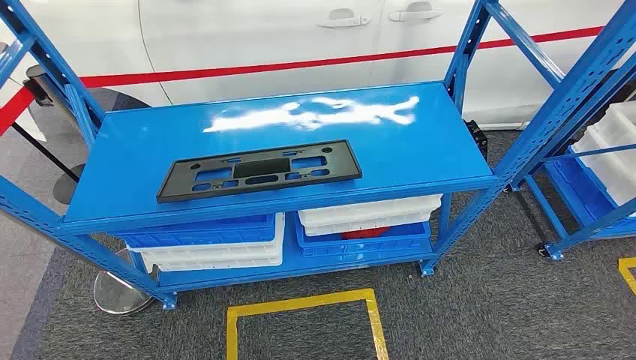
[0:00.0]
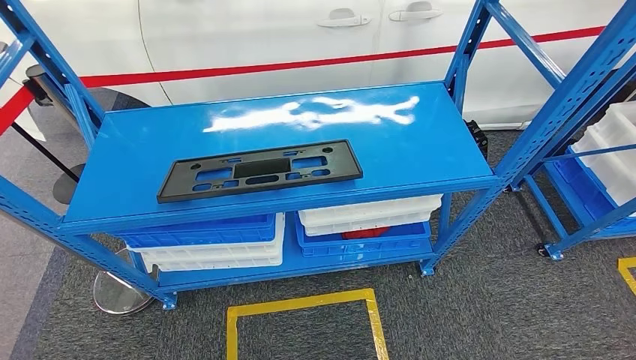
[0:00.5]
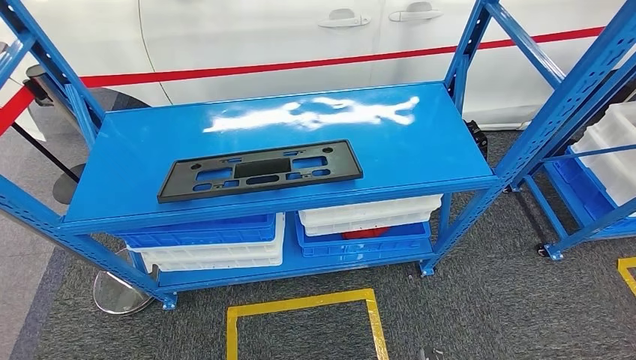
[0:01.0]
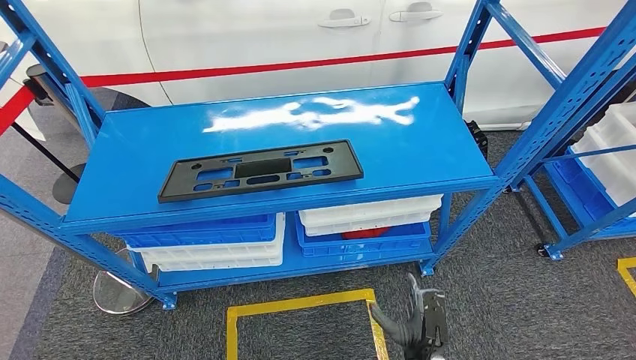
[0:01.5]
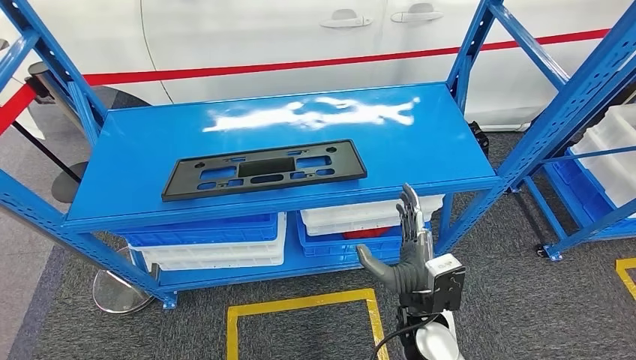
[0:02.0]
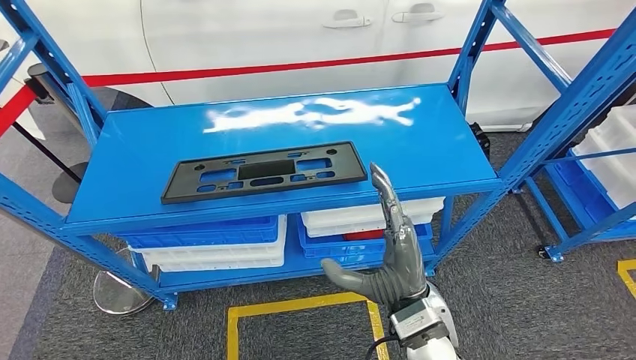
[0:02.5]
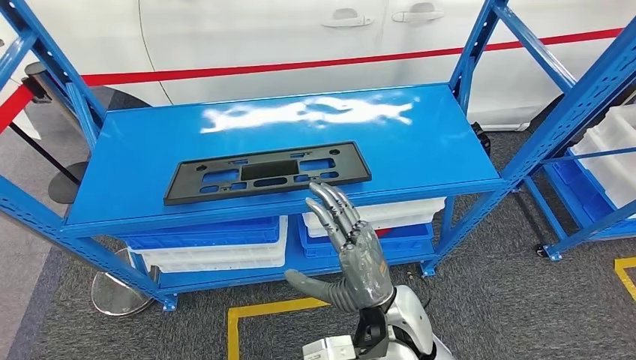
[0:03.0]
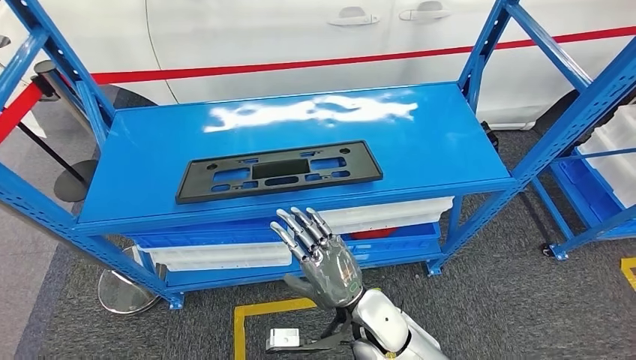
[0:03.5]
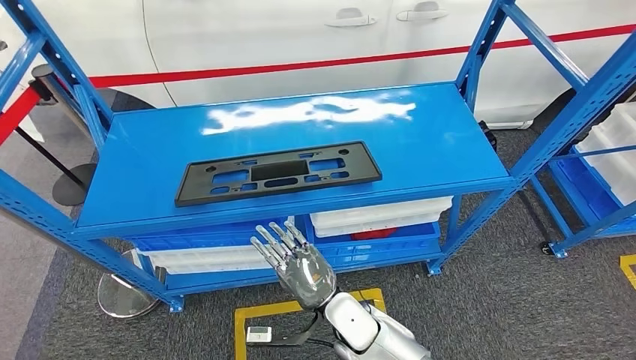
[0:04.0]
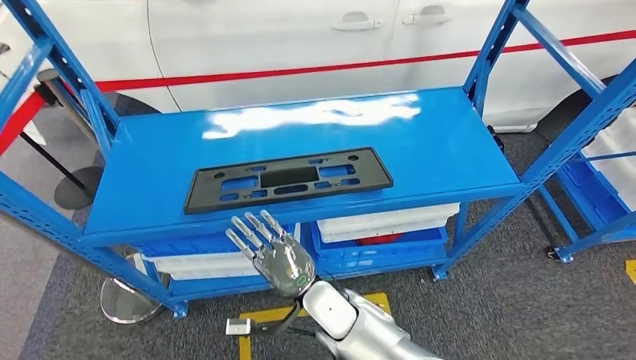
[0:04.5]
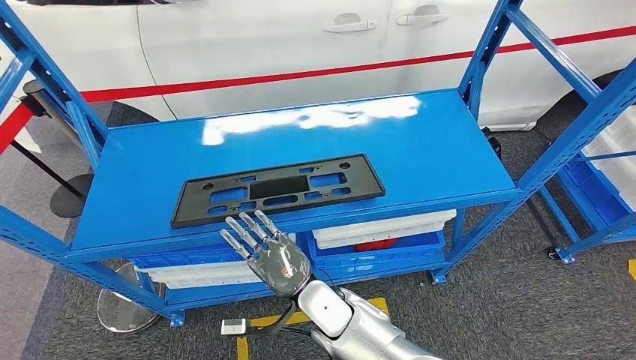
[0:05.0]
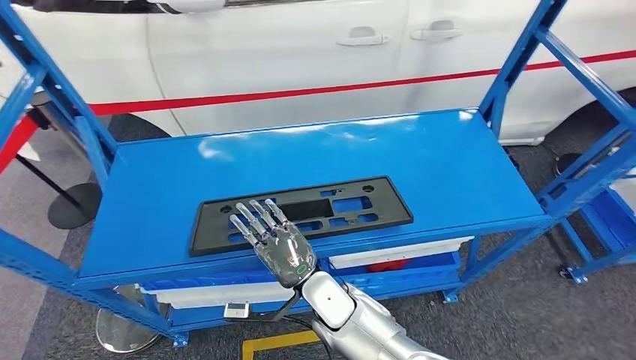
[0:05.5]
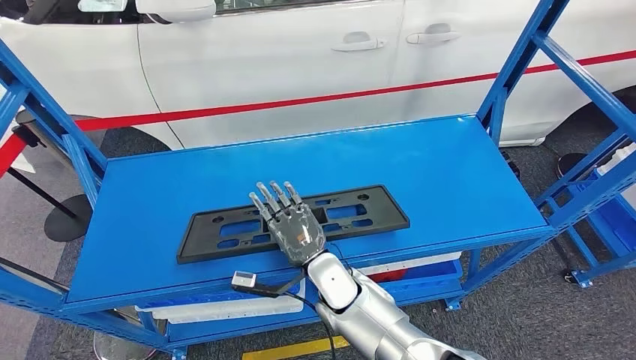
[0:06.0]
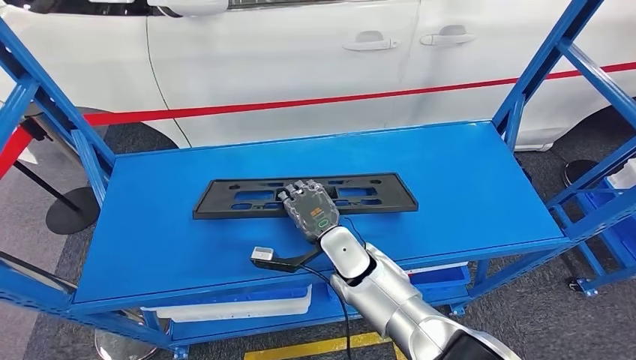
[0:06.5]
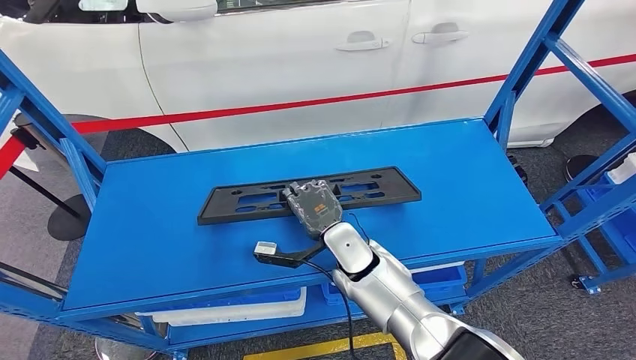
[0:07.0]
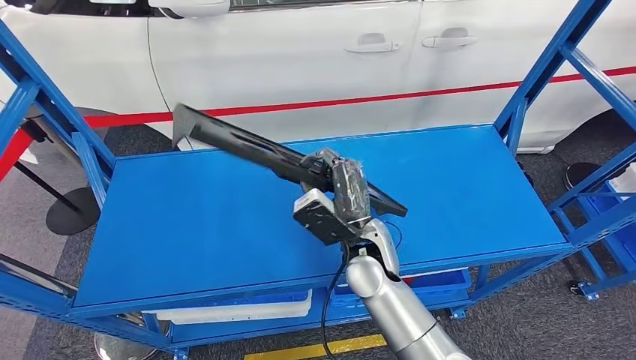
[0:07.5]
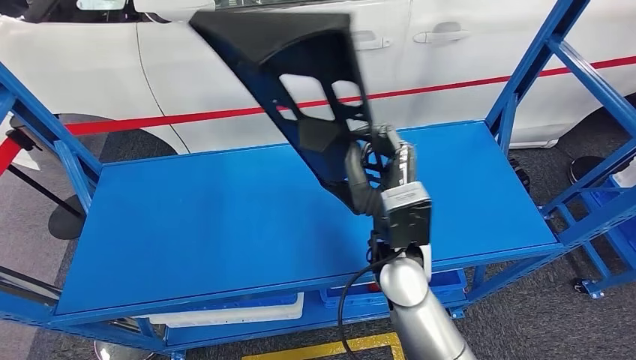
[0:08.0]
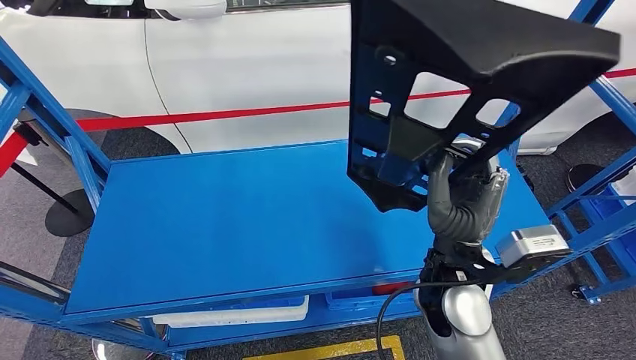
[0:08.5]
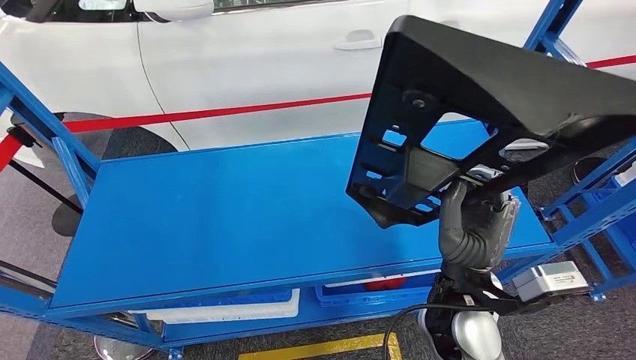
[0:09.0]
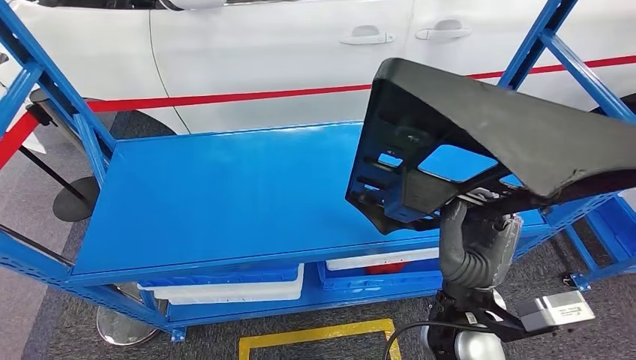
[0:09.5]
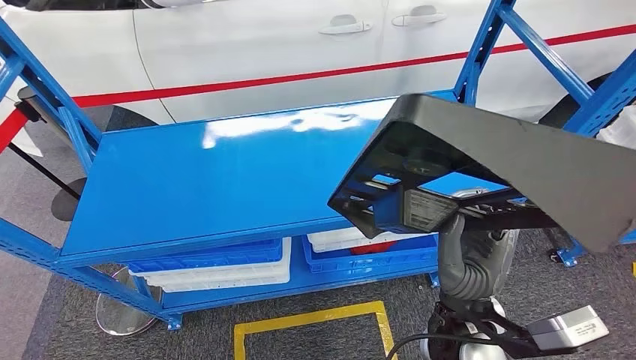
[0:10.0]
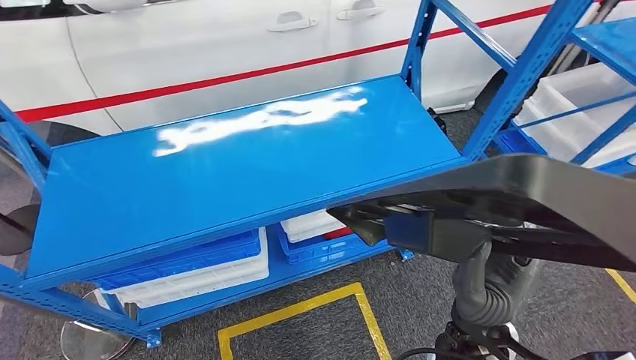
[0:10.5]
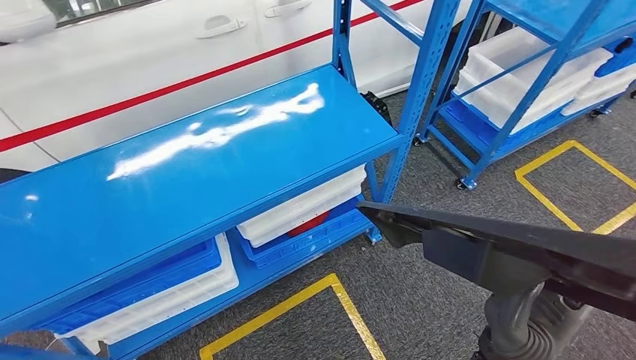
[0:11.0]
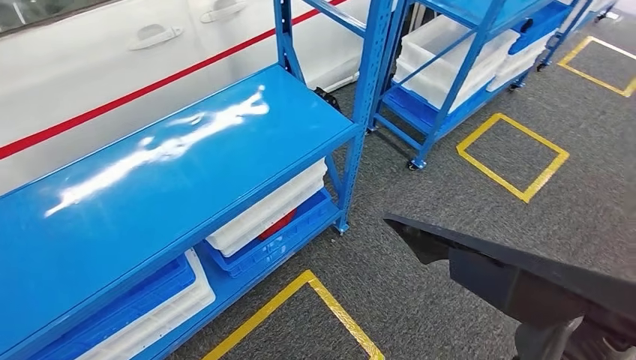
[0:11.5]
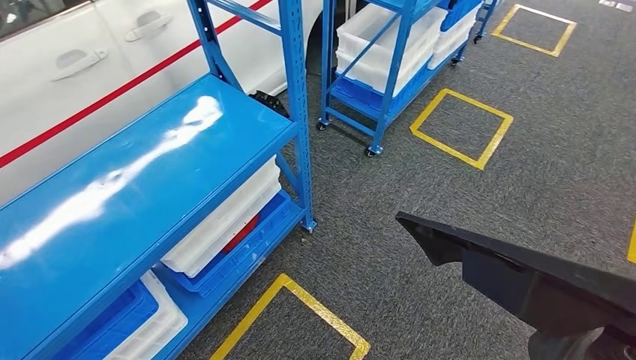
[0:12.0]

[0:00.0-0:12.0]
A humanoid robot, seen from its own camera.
Step, 0:00.0 to 0:09.0: Pick up the large material from the shelf.

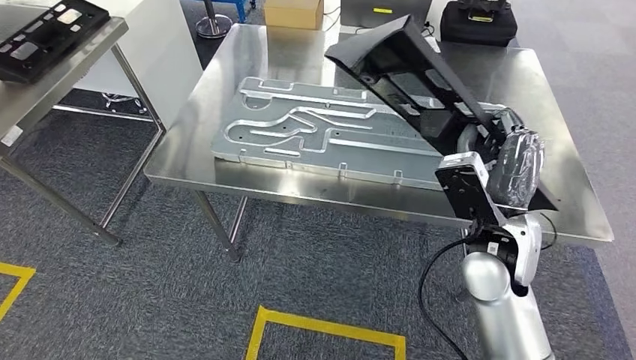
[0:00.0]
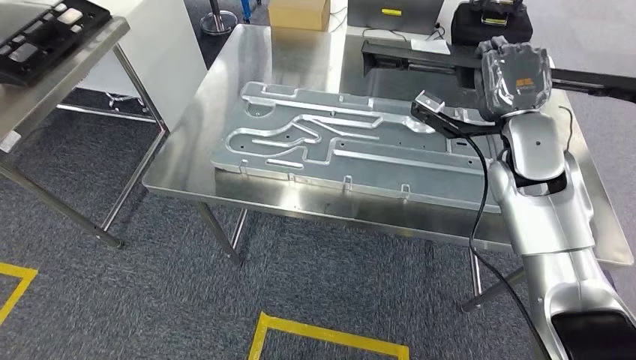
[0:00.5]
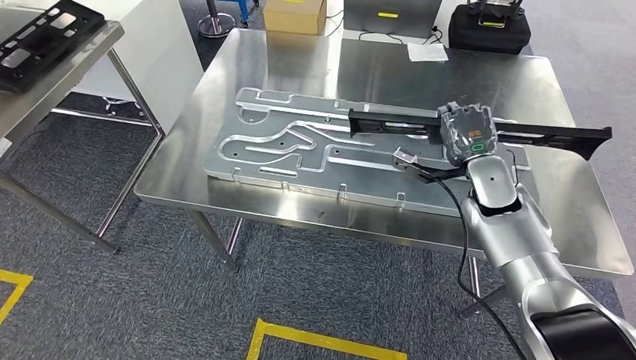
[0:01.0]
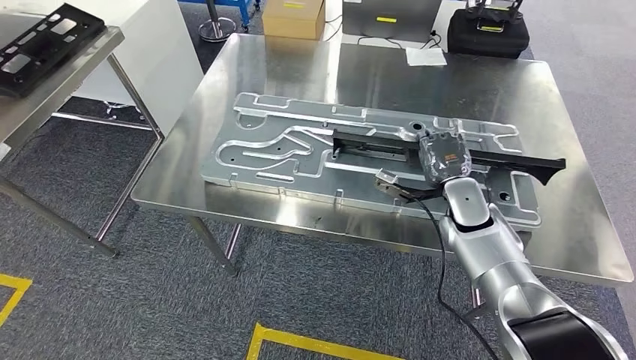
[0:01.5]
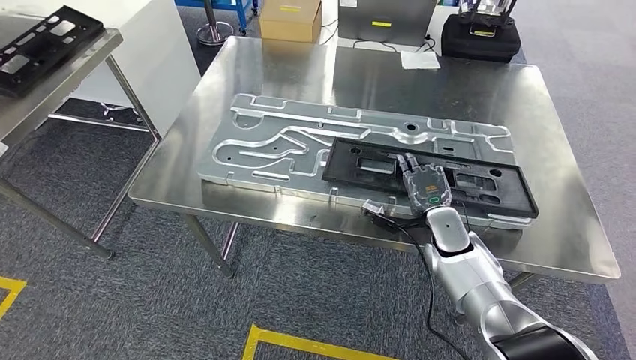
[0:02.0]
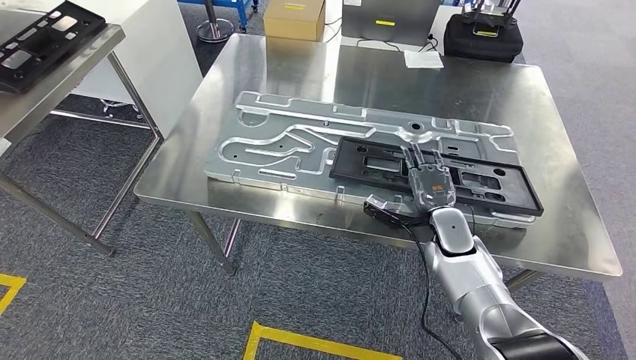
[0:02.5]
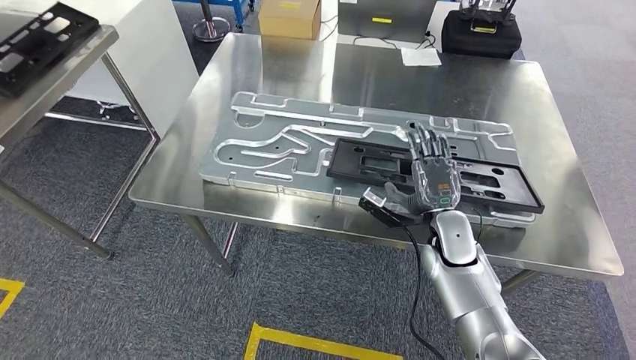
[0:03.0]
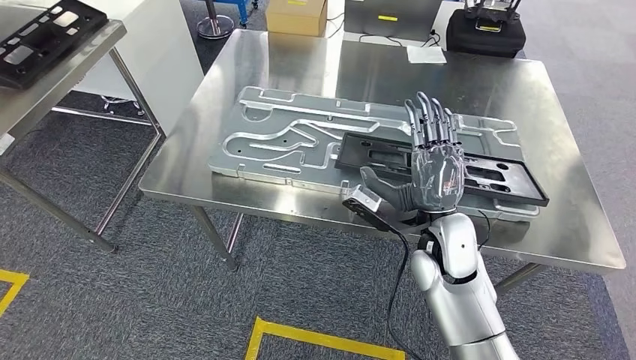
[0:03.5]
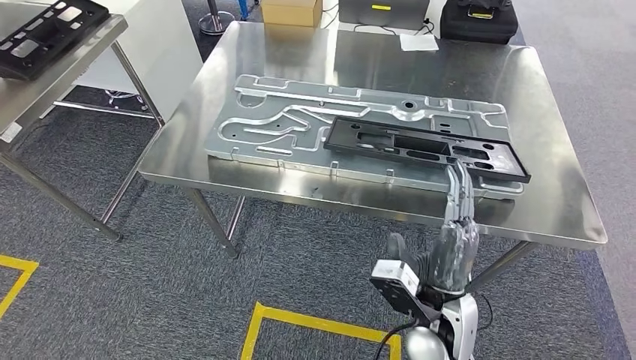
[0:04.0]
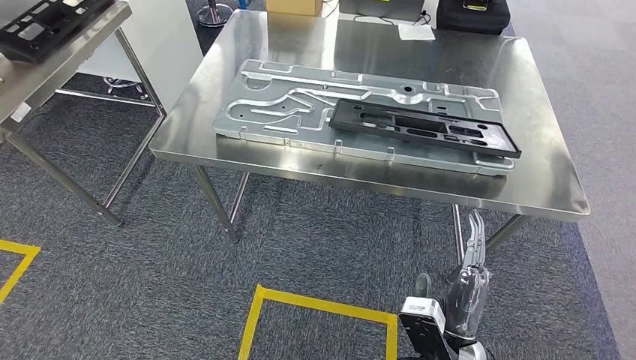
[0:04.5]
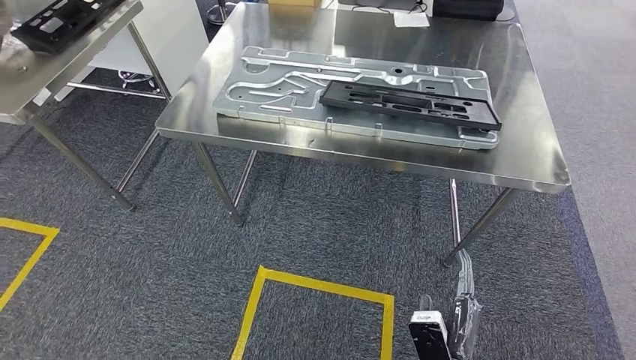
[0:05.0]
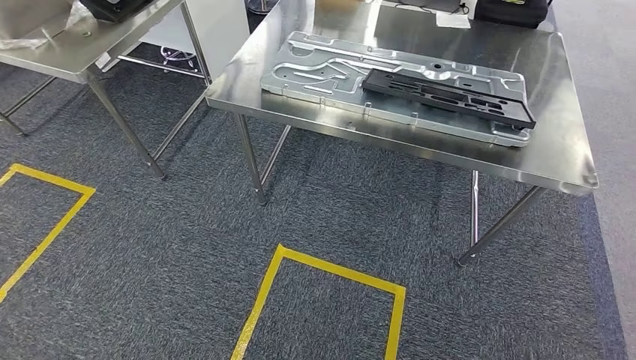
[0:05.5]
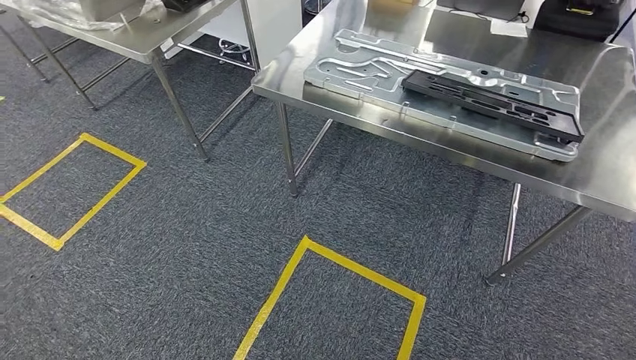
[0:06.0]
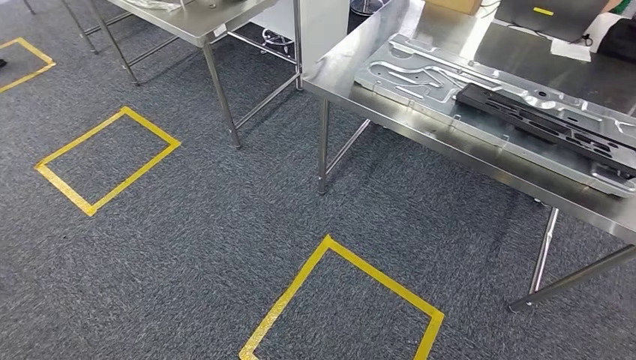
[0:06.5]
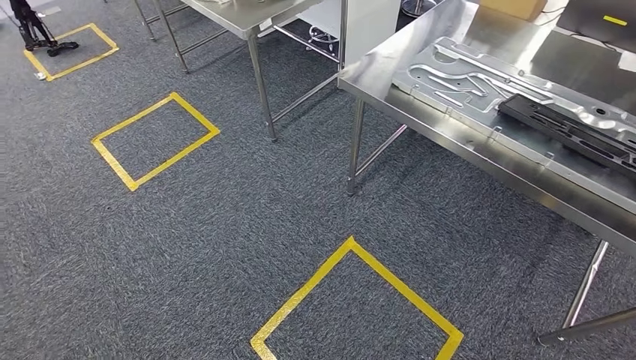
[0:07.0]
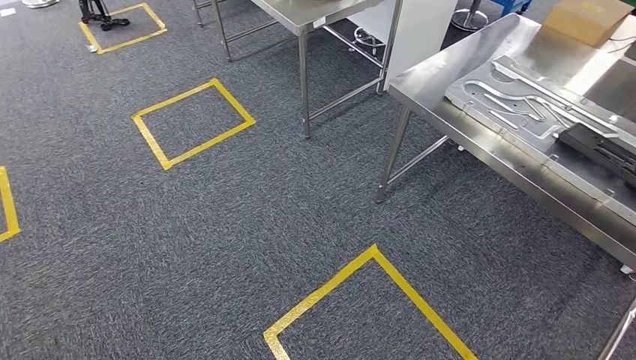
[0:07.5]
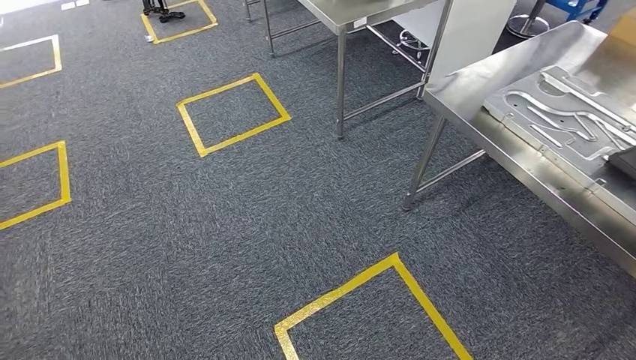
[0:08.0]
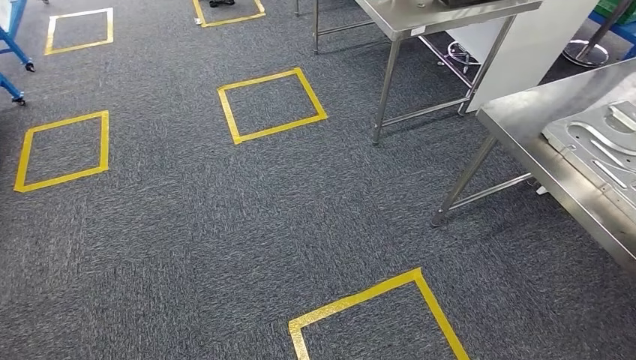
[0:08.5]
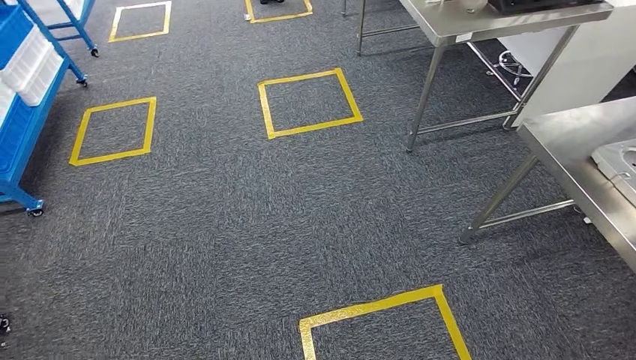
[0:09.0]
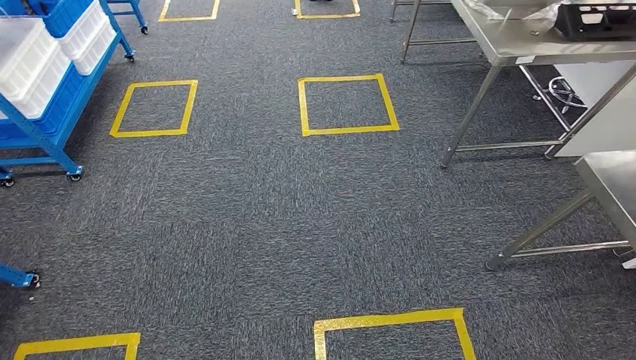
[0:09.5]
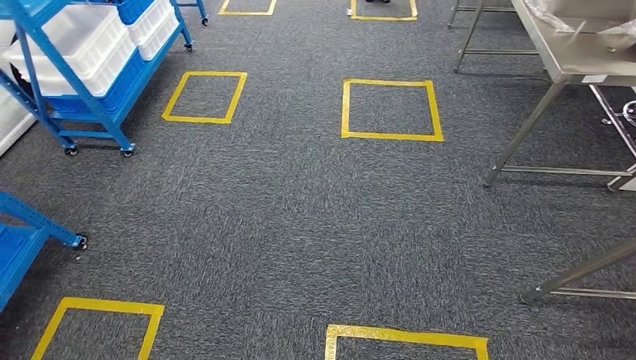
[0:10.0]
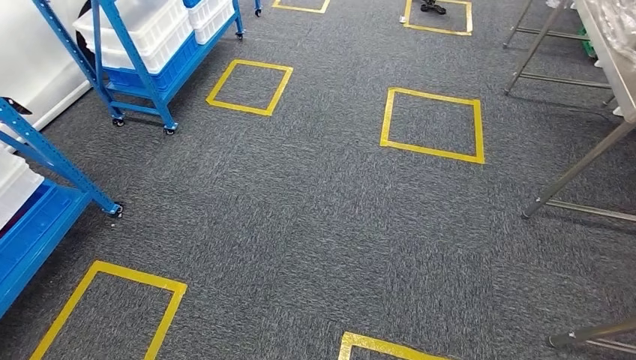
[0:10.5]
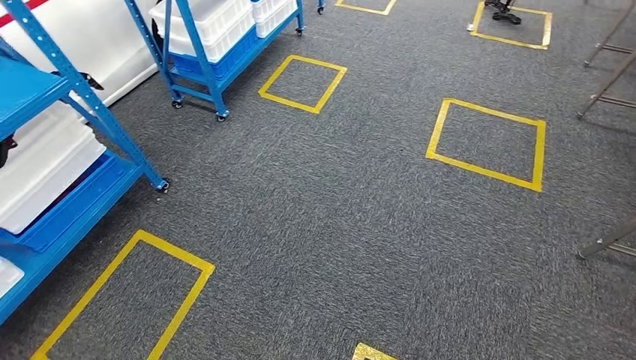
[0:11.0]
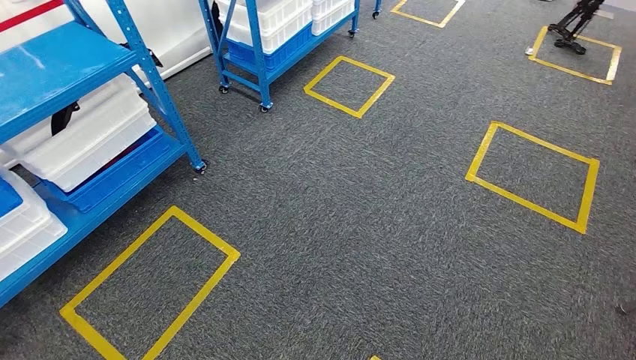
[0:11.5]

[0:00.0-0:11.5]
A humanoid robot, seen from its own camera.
Step, 0:01.5 to 0:05.0: Insert the large material into the corresponding slot on the workbench.
